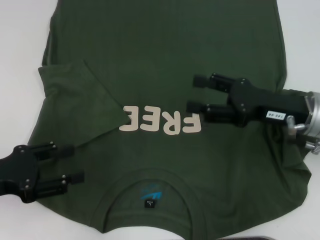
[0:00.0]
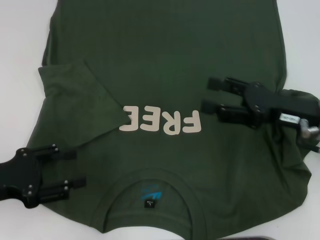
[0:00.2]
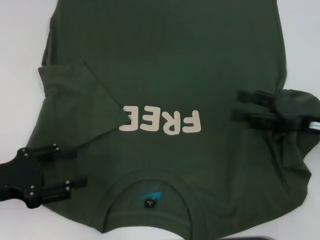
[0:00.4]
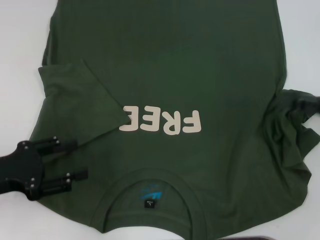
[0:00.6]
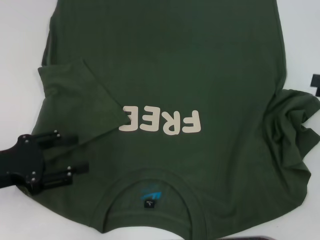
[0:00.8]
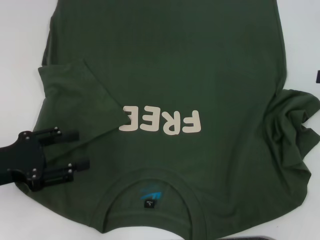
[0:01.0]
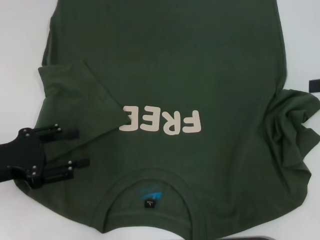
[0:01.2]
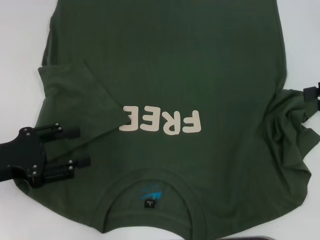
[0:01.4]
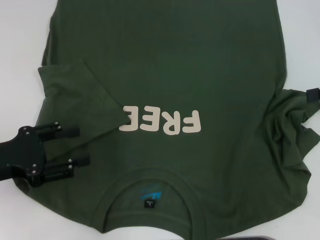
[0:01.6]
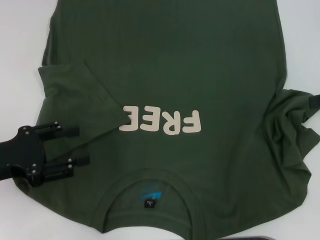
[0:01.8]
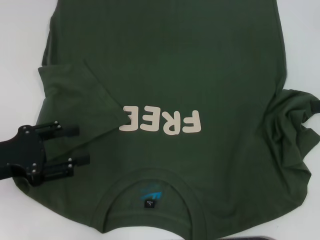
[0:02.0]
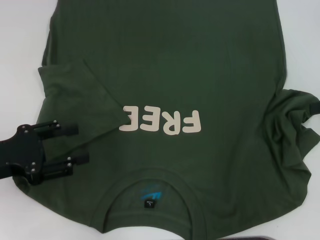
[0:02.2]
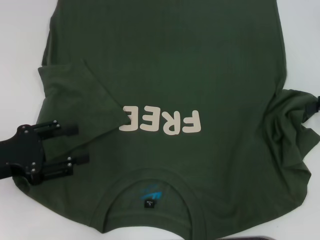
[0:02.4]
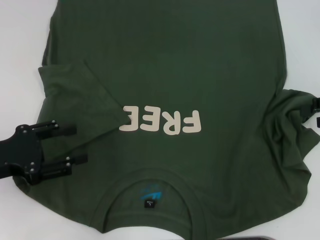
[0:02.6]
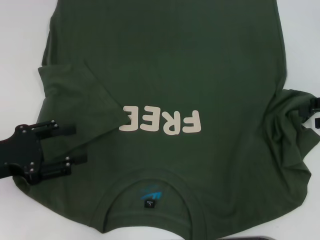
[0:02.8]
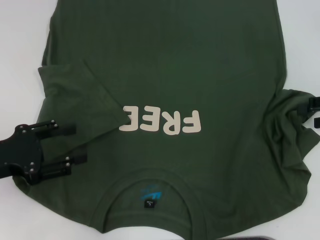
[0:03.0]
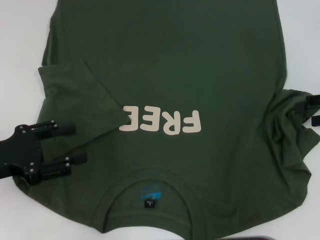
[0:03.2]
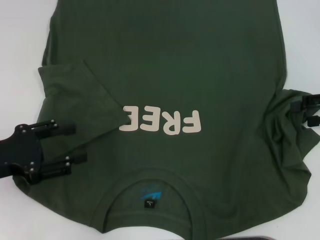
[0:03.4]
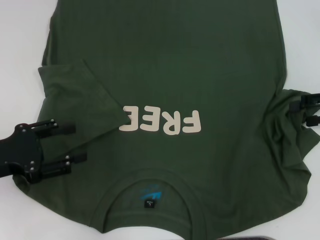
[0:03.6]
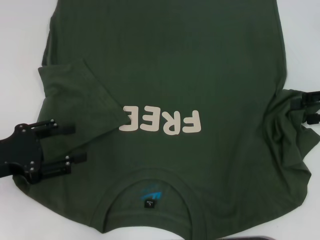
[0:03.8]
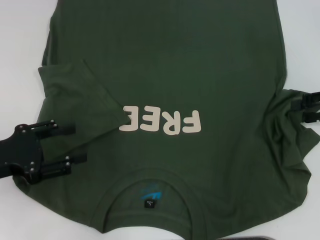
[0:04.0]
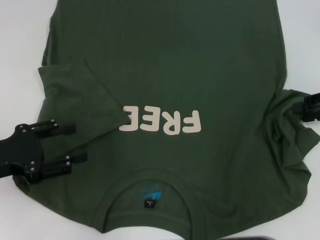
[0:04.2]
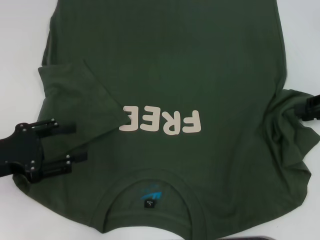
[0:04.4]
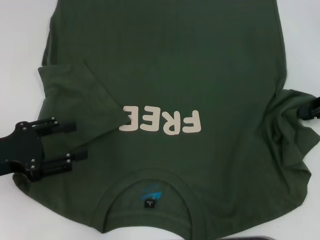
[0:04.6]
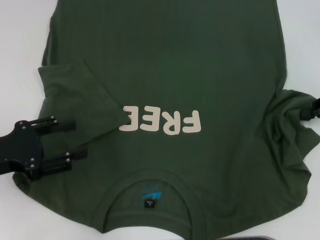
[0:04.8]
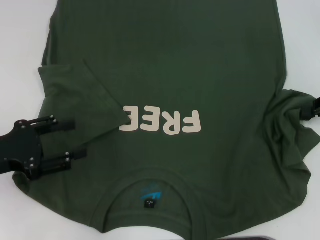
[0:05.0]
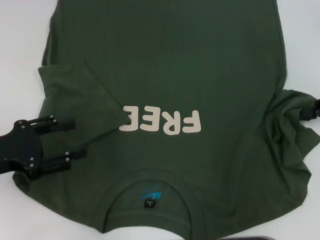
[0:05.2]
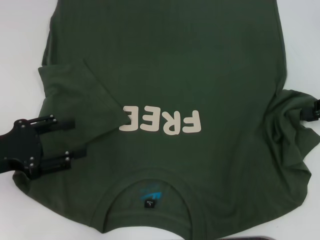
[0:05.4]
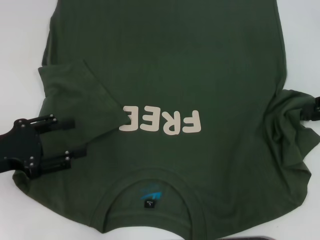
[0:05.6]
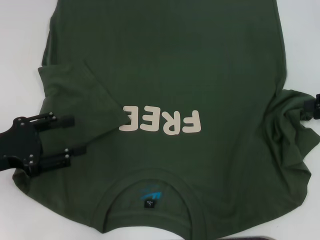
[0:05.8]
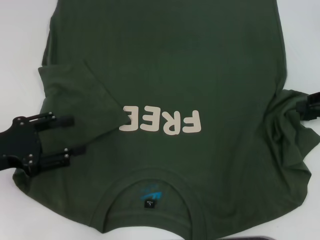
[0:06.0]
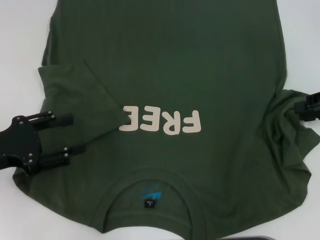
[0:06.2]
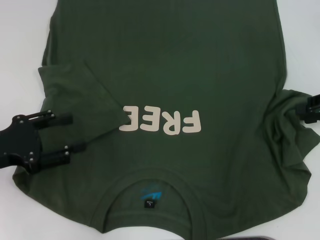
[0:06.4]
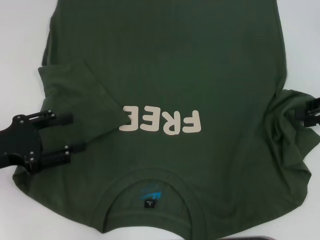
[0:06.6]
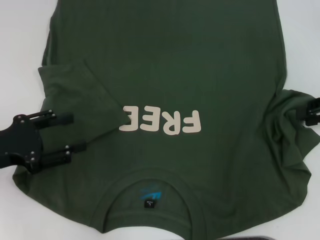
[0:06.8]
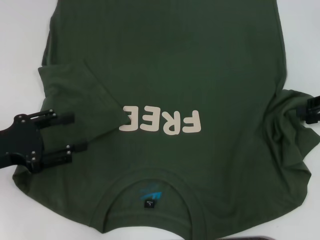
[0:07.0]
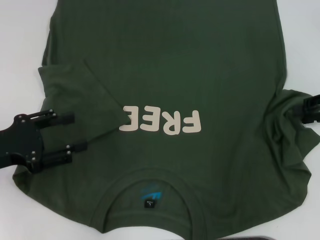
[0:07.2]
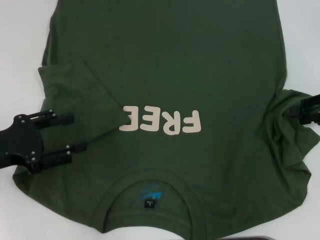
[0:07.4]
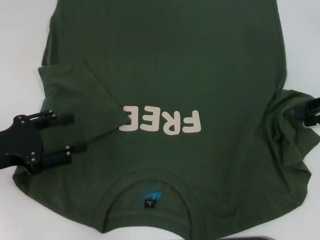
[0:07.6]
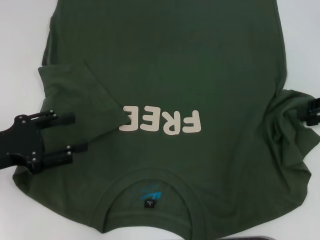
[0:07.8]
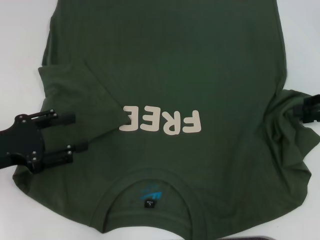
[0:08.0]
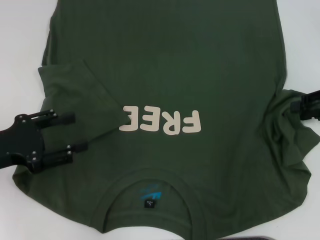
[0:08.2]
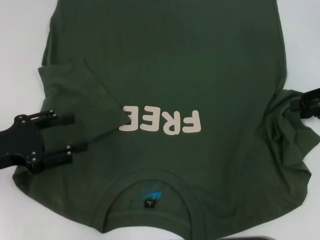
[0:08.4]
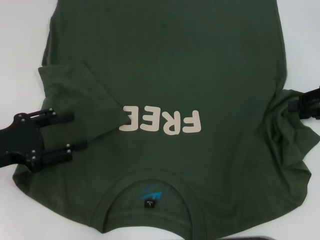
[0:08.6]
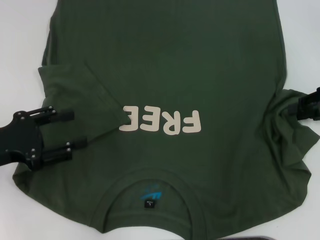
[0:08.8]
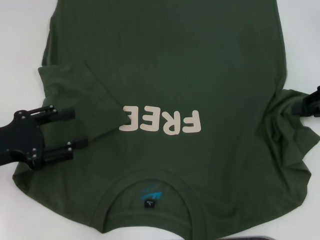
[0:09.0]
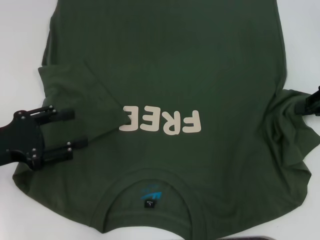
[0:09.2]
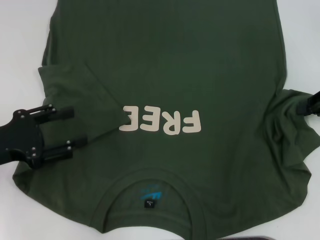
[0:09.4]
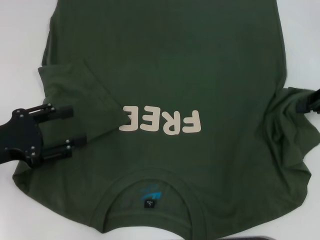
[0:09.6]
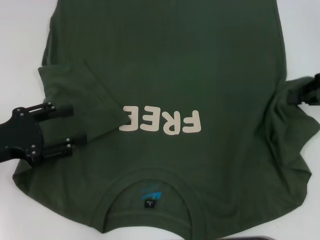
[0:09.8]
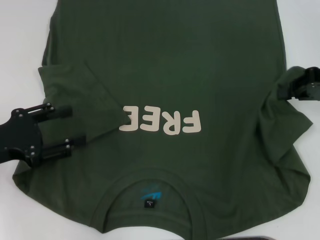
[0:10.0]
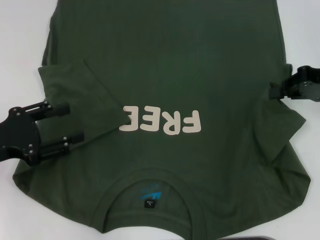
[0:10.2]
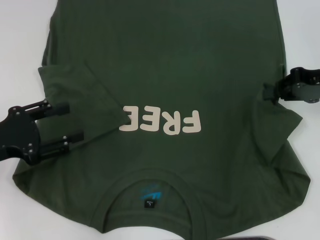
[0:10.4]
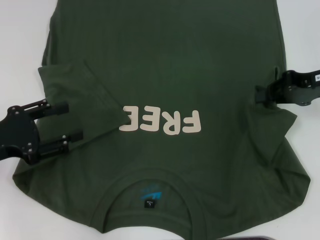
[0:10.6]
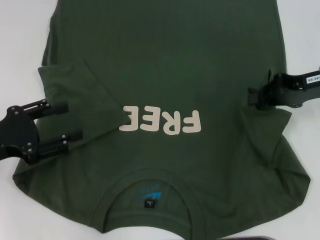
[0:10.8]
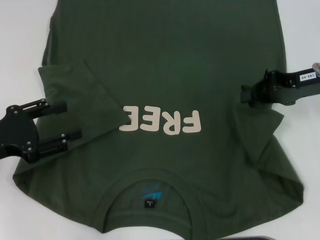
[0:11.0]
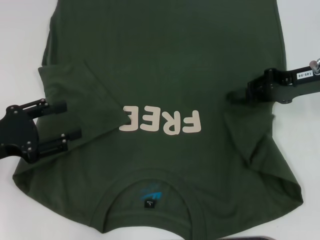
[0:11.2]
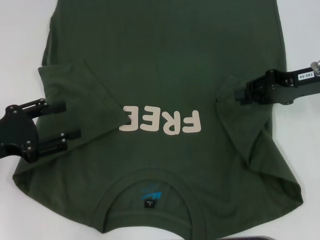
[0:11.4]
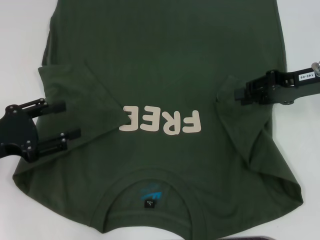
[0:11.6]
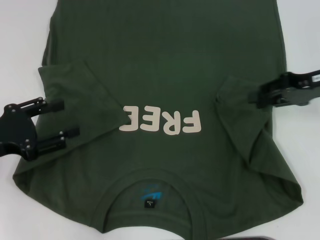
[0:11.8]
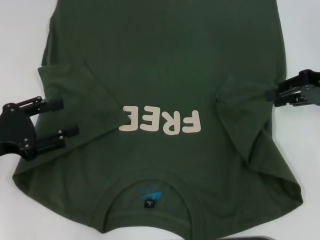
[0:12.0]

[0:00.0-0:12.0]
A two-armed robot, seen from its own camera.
0:00.0 to 0:01.6: The right gripper shifts roughly 15 cm to the right and upward.
0:01.6 to 0:03.0: The grippers make only small movements.
0:06.0 to 0:07.6: Neither gripper changes place.
0:07.6 to 0:09.0: The grippers move only a little.
0:09.0 to 0:10.4: The right gripper ends up about 5 cm from where it was.
0:10.4 to 0:12.0: The right gripper opens.

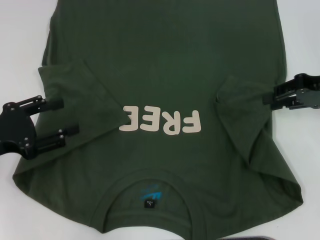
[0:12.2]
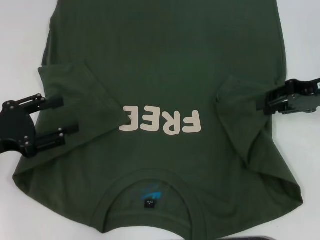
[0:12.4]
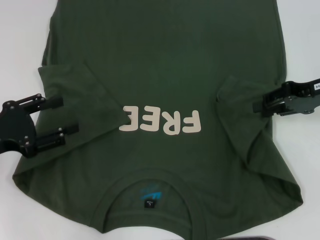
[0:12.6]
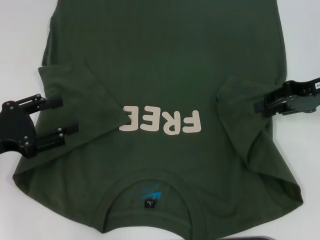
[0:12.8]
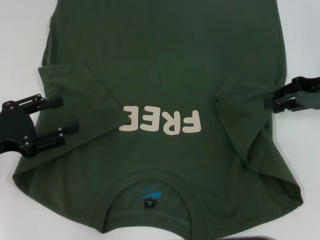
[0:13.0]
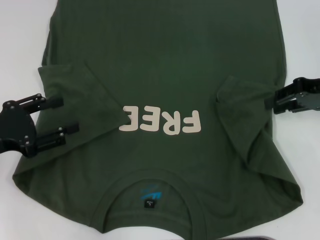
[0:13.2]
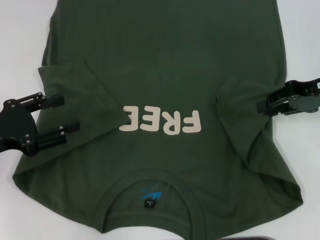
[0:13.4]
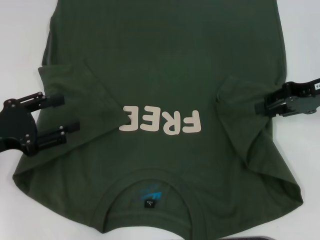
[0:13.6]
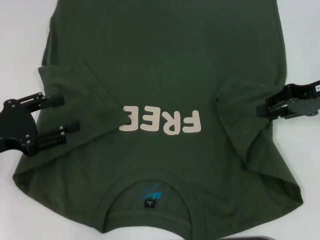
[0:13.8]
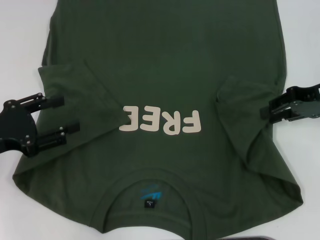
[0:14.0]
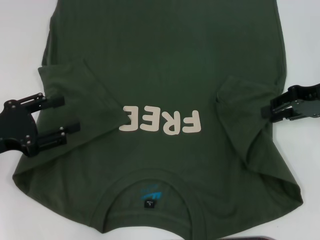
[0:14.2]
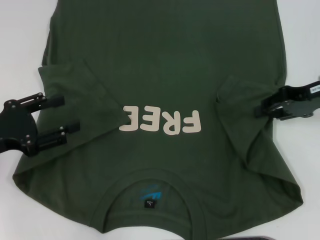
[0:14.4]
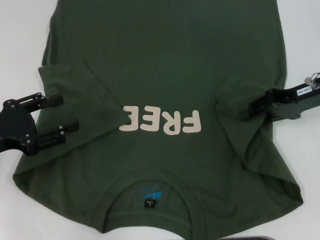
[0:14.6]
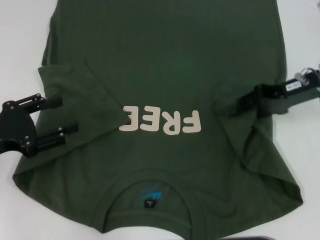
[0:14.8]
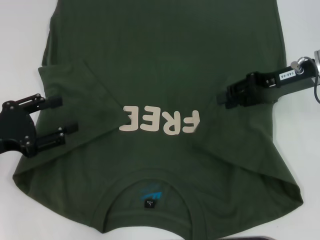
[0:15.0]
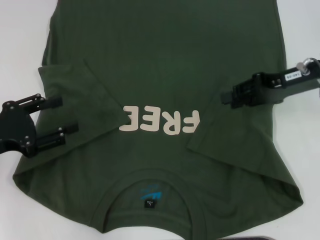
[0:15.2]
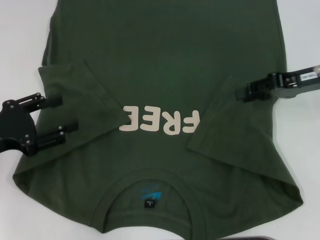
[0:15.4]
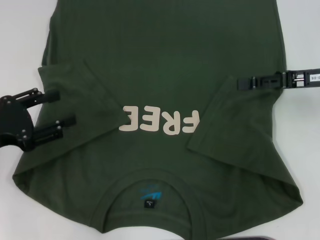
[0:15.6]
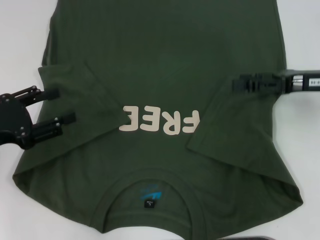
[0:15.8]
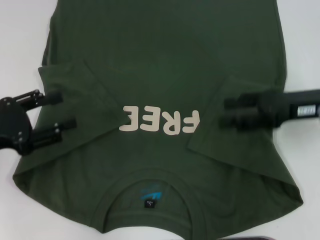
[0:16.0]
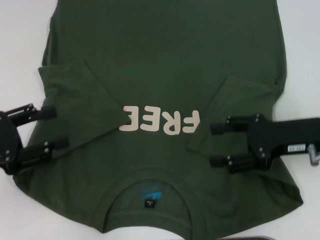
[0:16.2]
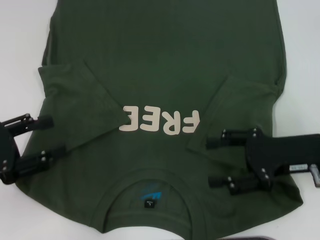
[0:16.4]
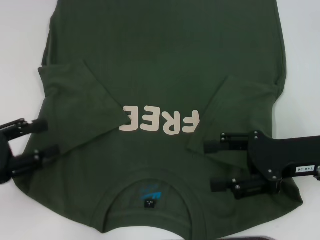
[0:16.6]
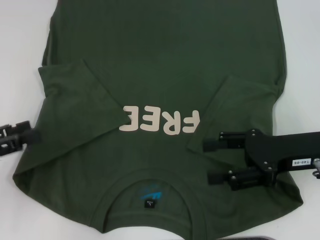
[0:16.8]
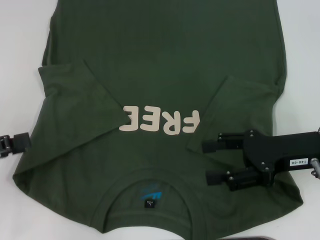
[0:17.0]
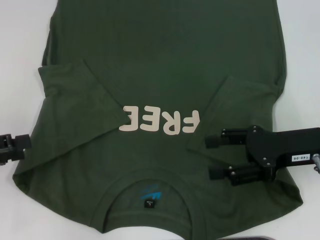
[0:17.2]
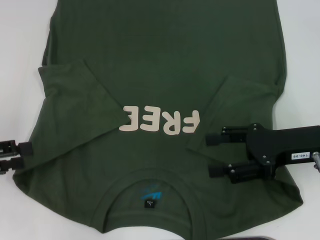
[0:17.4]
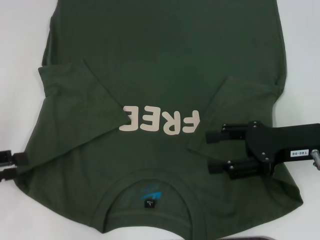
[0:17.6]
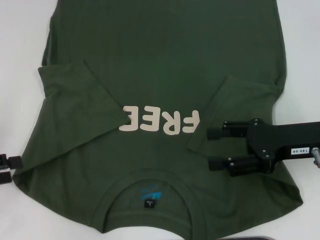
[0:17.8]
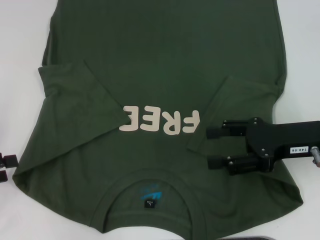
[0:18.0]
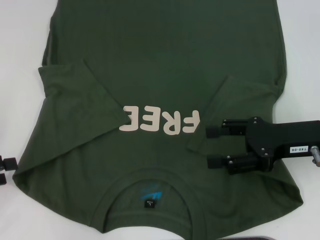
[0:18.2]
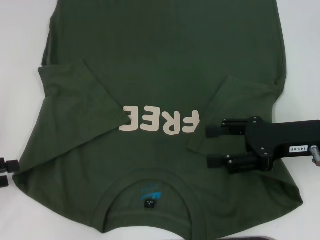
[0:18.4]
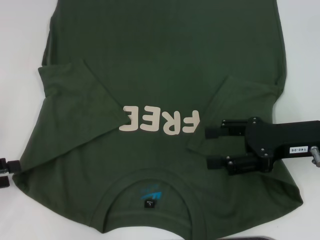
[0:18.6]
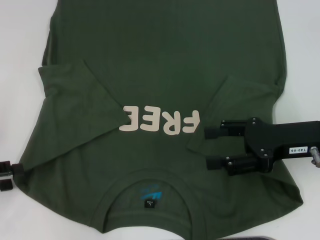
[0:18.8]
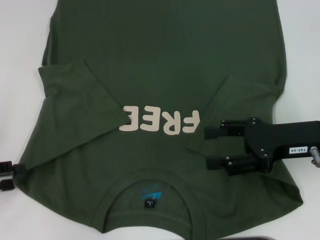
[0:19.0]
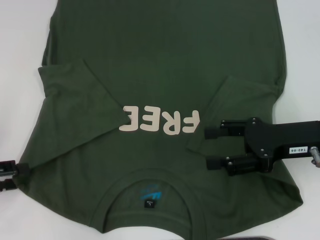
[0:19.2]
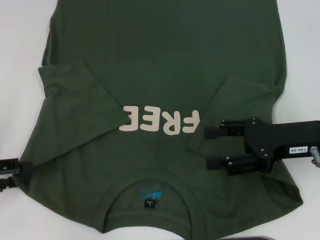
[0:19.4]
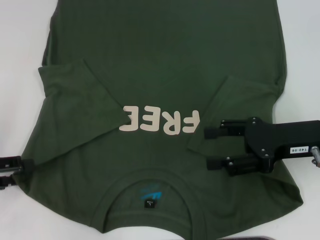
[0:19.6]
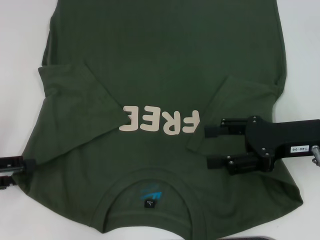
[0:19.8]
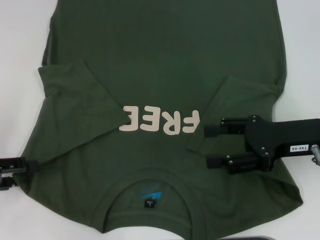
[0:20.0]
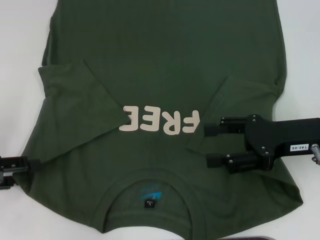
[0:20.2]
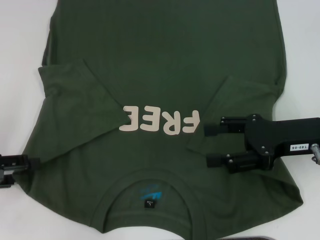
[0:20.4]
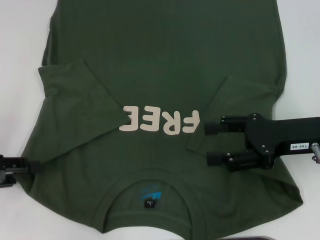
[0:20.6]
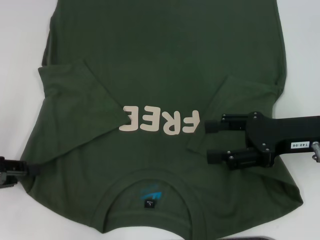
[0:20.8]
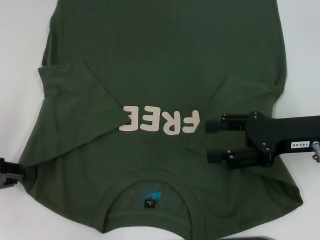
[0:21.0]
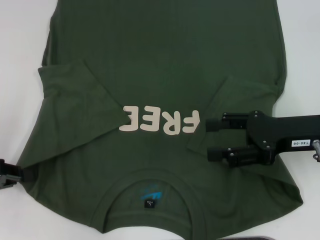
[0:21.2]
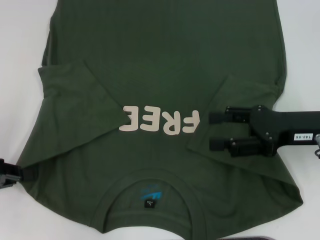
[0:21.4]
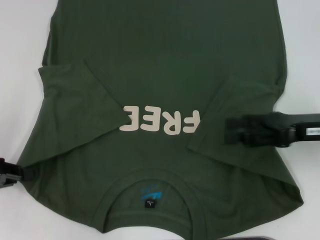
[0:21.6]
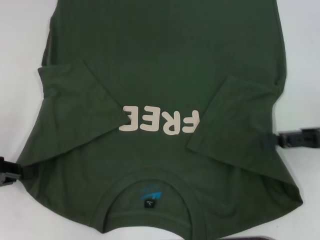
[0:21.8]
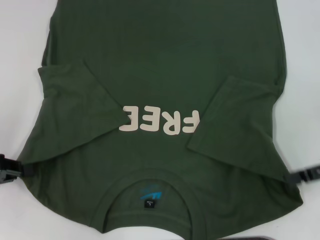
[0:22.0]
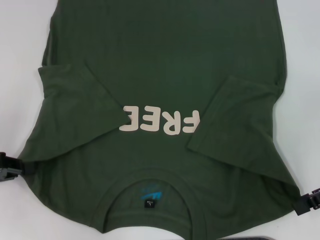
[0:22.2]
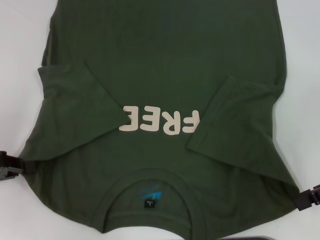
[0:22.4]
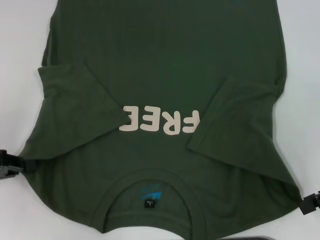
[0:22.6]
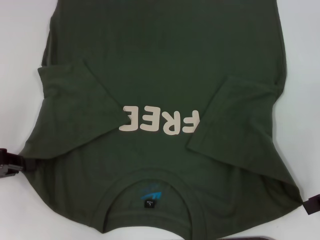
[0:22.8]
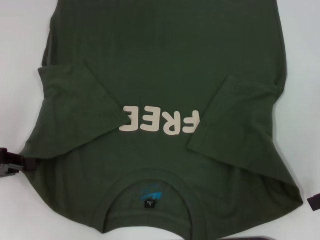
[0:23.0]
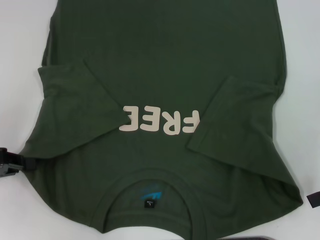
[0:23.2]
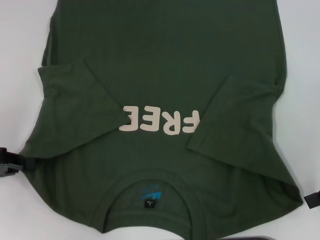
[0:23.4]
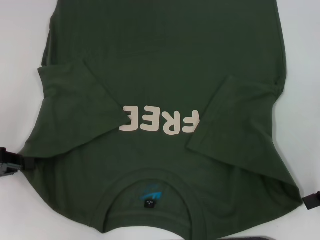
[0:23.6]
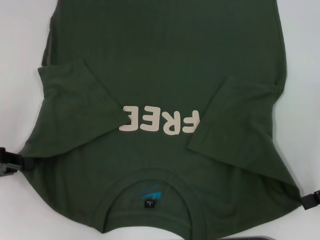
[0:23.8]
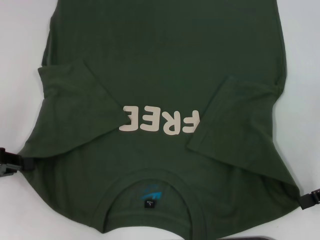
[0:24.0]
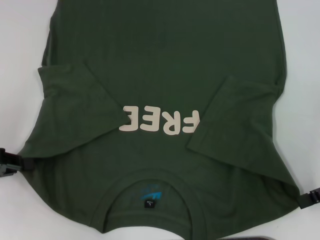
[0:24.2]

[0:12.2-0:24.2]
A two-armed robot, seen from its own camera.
Step, 0:12.2 to 0:16.2: Fold the bottom right sleeve with your right hand.
Step, 0:16.4 to 0:21.0: Grab the bottom left corner with your left hand.
0:12.2 to 0:13.8: The grippers move only a little.
0:13.8 to 0:15.2: The grippers make only small movements.
0:15.2 to 0:16.6: The right gripper goes approximately 10 cm backward, and opens its fingers.
0:16.6 to 0:18.2: The left gripper is displaced to the left by about 5 cm.
0:18.2 to 0:19.8: The grippers stay close to where they were, moving slightly.
0:19.8 to 0:21.2: The left gripper closes its fingers.
0:21.2 to 0:22.6: The right gripper heads to the right, covering about 10 cm.
